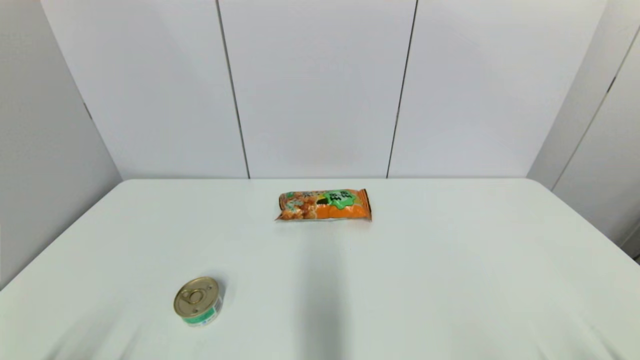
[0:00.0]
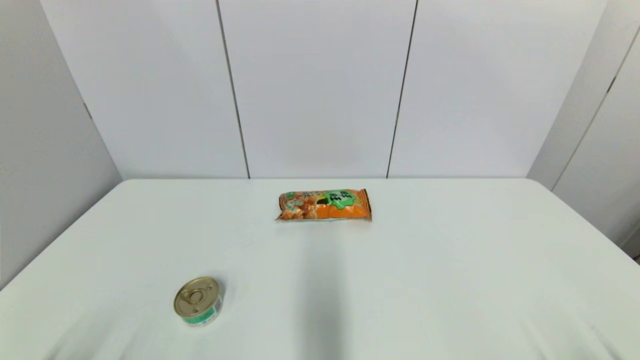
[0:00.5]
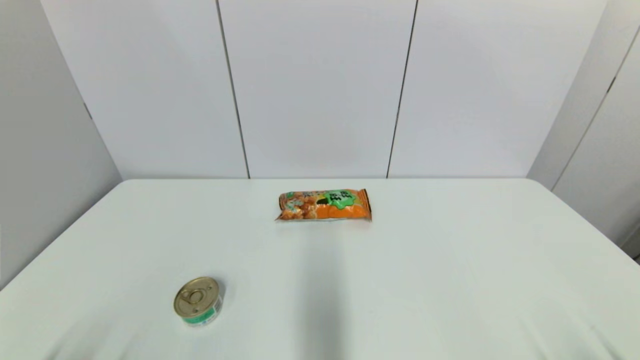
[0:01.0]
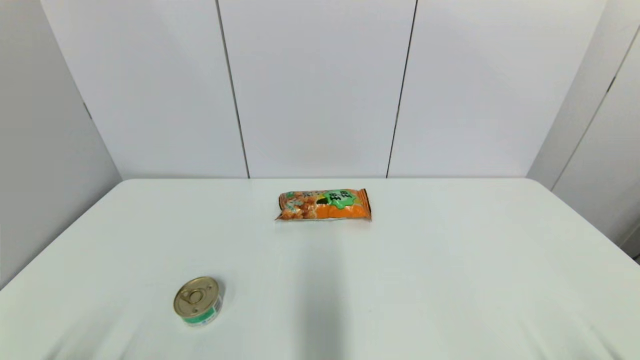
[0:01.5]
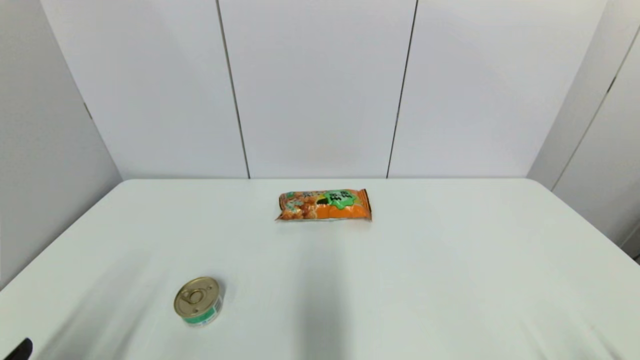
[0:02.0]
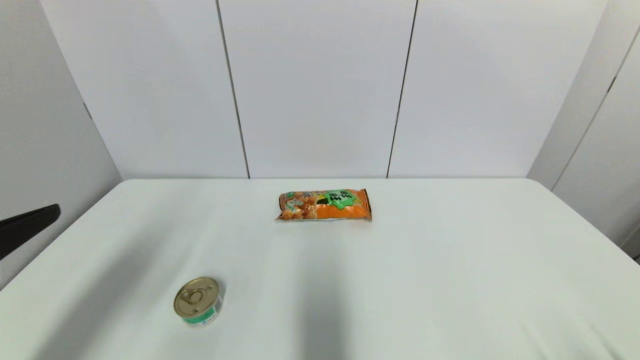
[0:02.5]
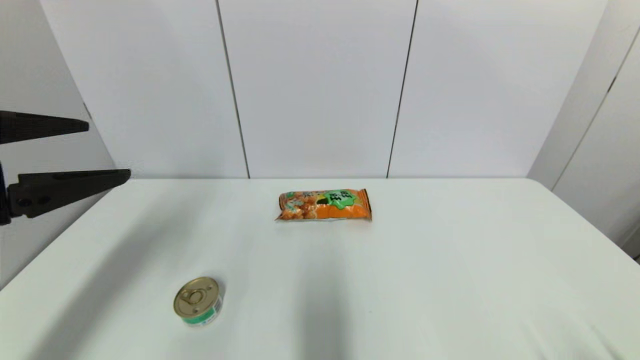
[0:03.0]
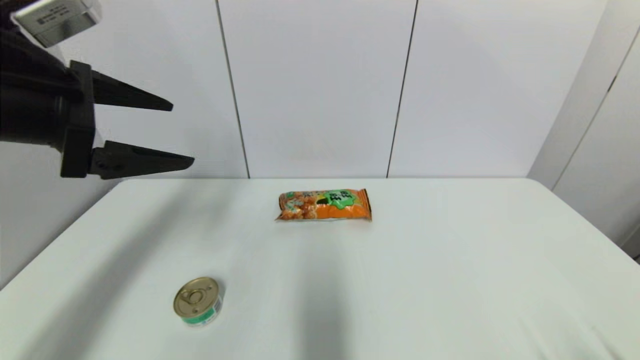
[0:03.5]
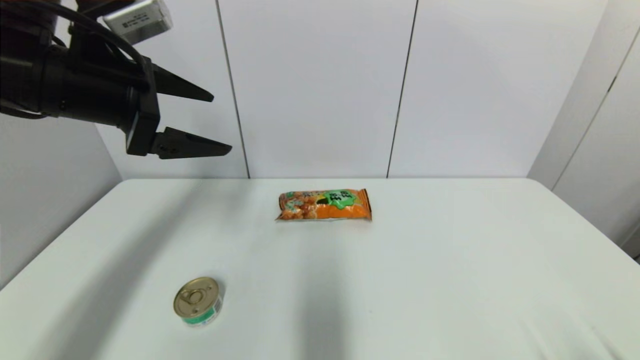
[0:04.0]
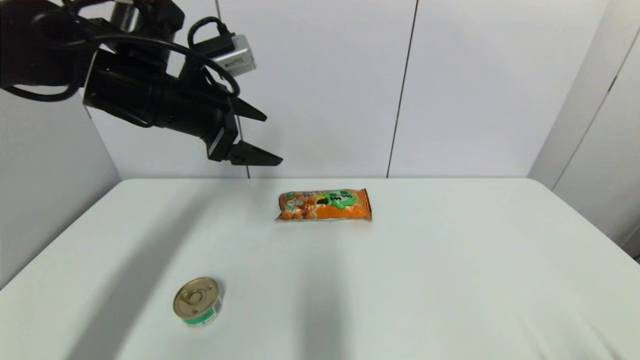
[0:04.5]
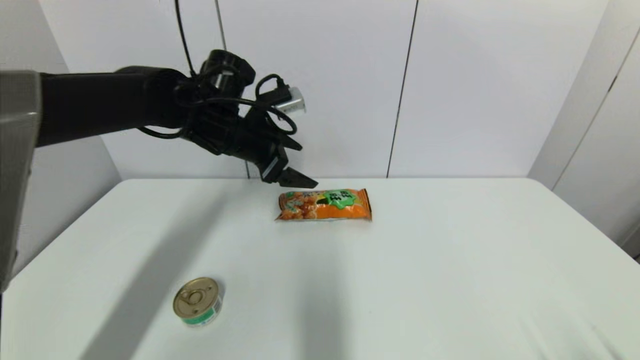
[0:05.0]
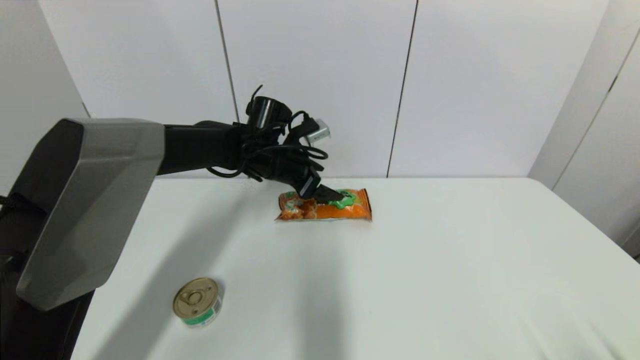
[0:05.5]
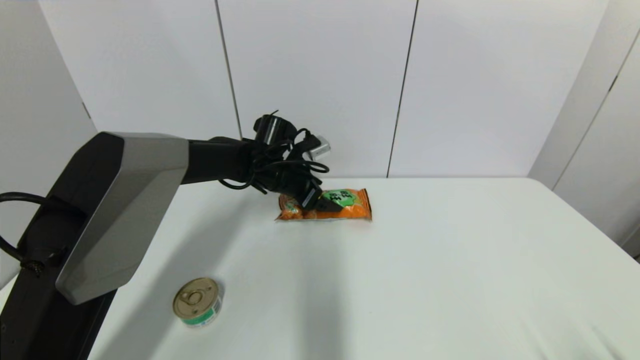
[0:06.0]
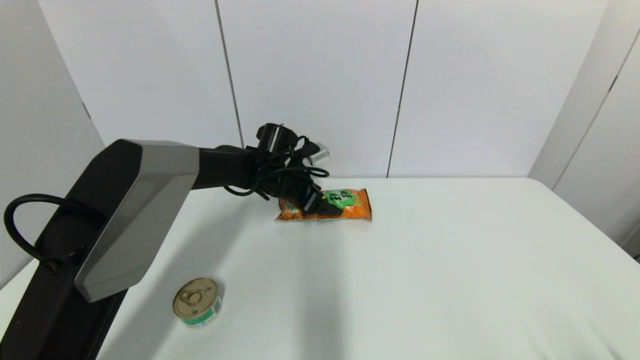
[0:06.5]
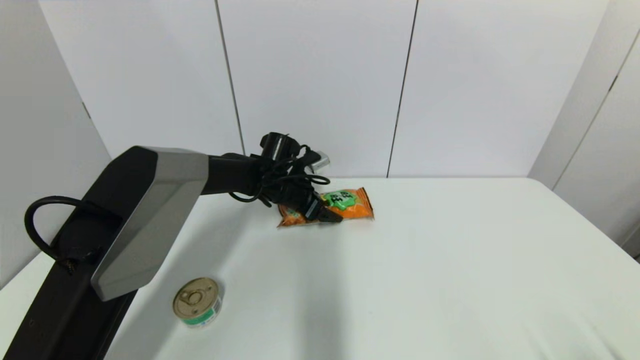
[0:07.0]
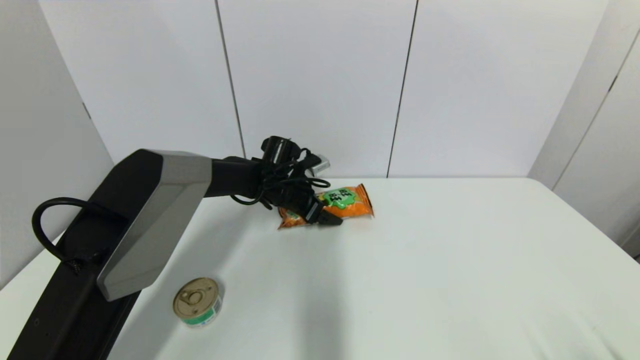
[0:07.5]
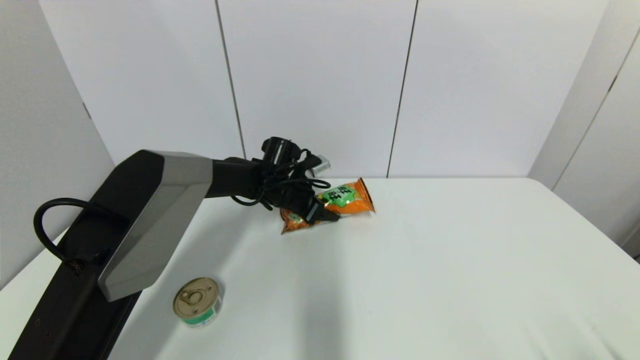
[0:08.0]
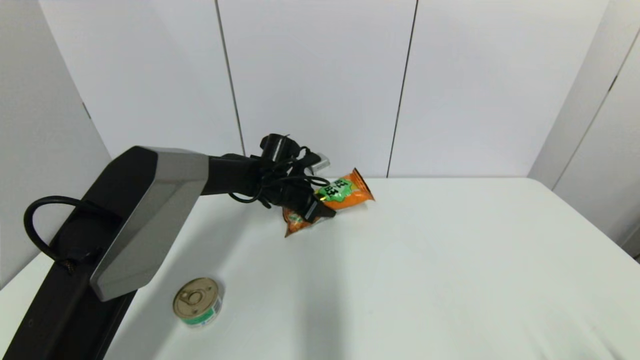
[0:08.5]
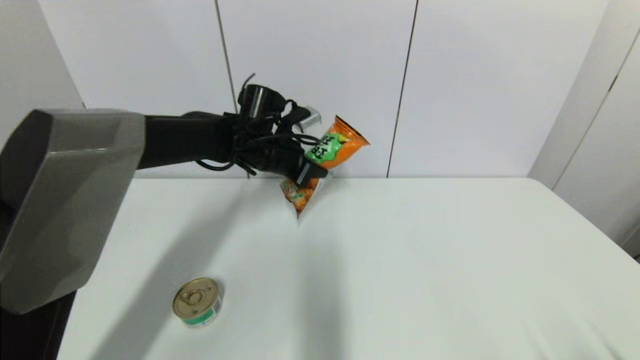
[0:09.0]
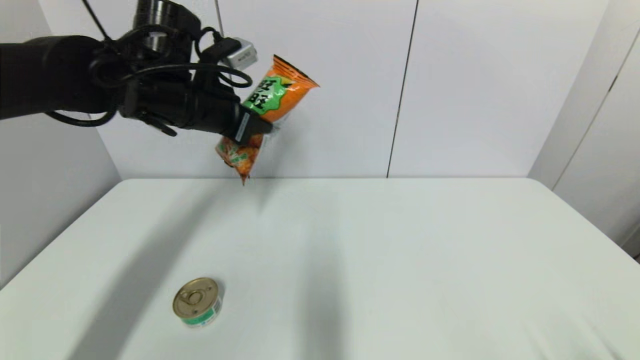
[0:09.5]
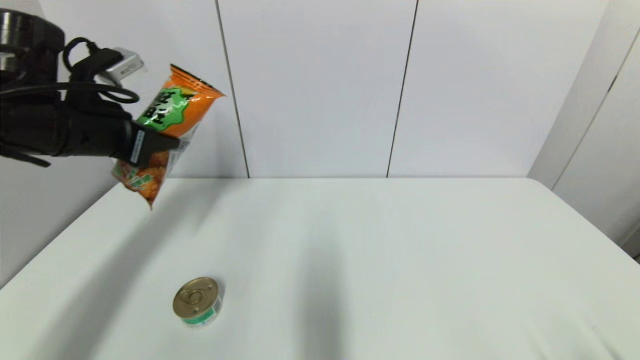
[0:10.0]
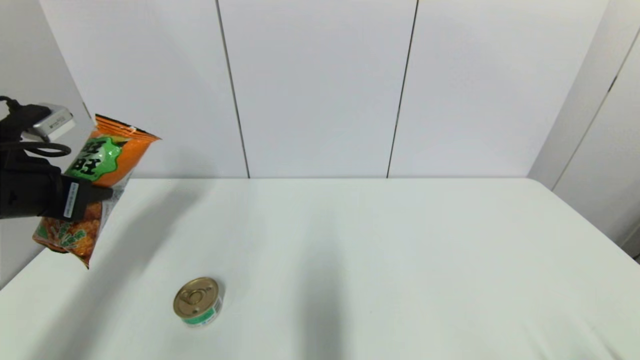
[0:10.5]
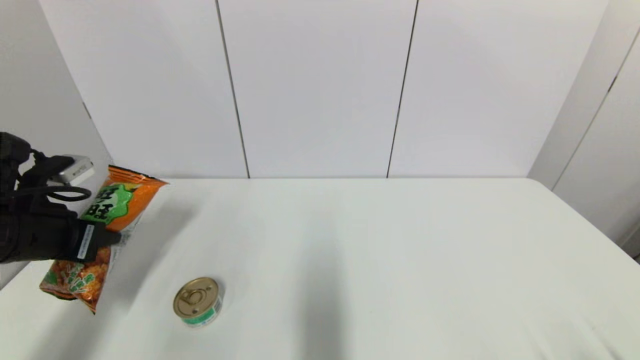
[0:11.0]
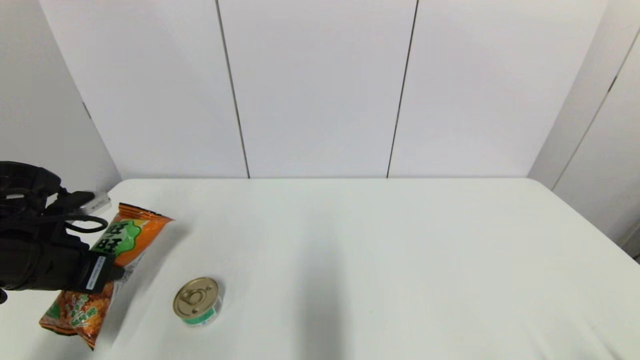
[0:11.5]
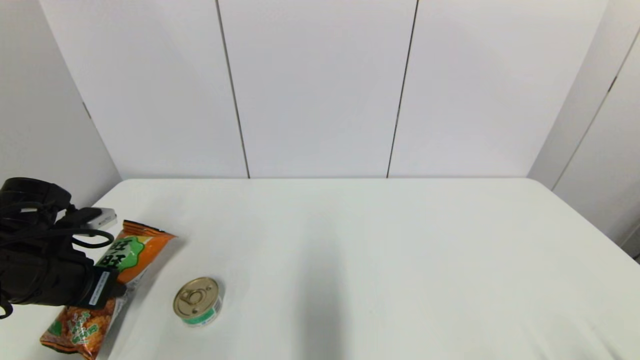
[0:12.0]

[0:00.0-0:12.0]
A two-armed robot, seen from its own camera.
Step, 0:02.0 to 0:08.5: Grasp the cookie with left gripper.
0:00.0 to 0:02.0: The left gripper shifts about 10 cm upward.
0:02.0 to 0:04.0: The left gripper is displaced forward and upward by some 30 cm.
0:04.0 to 0:06.0: The left gripper is displaced downward, forward and to the right by some 30 cm.
0:06.0 to 0:08.0: The left gripper shifts about 5 cm downward, and closes.
0:08.0 to 0:10.0: The left gripper moves to the left, upward and backward, approximately 35 cm, and closes its fingers.
0:10.0 to 0:12.0: The left gripper moves downward and backward, about 15 cm.

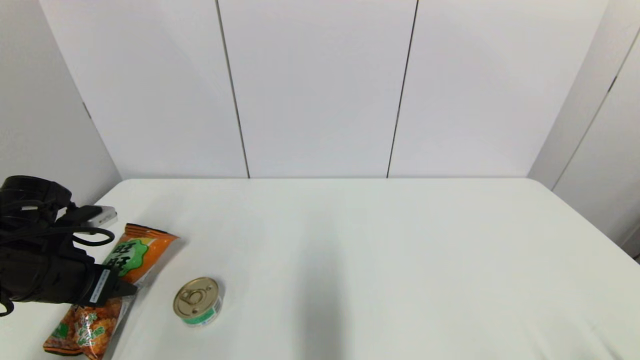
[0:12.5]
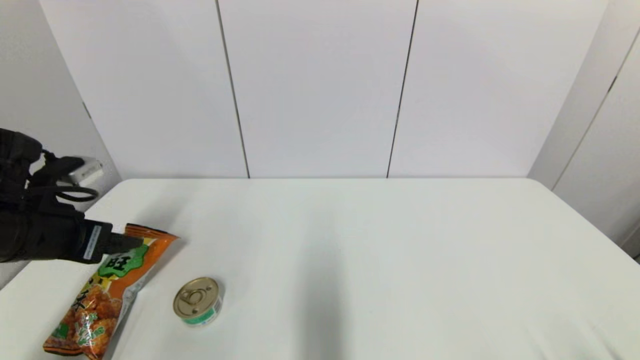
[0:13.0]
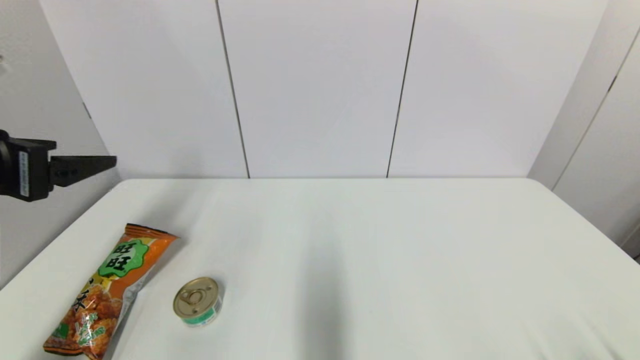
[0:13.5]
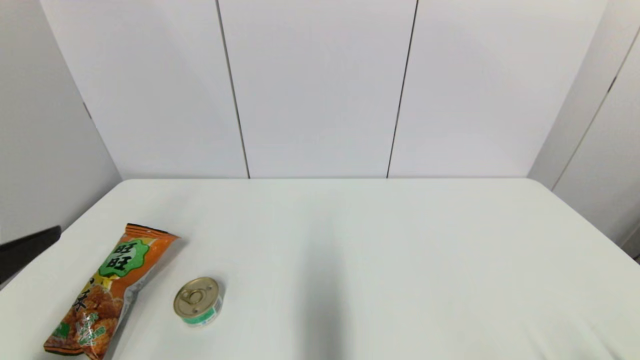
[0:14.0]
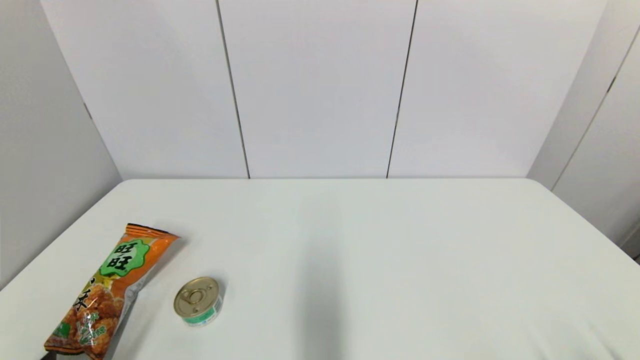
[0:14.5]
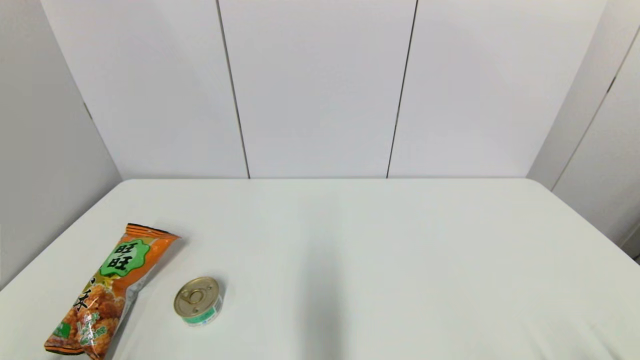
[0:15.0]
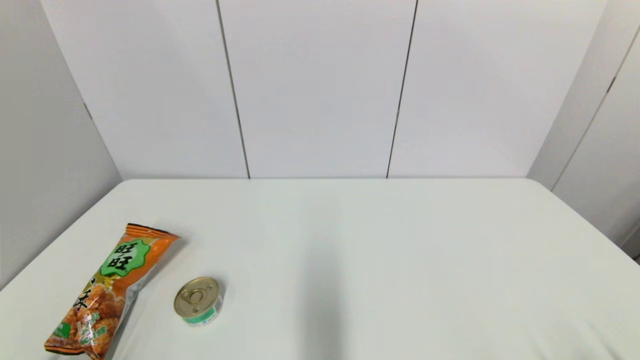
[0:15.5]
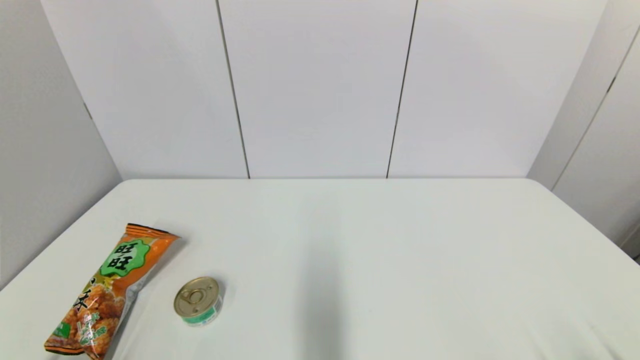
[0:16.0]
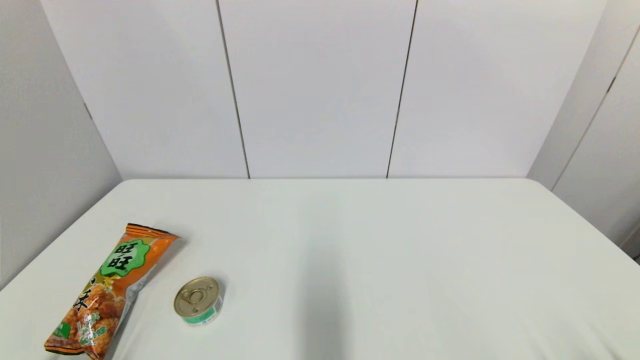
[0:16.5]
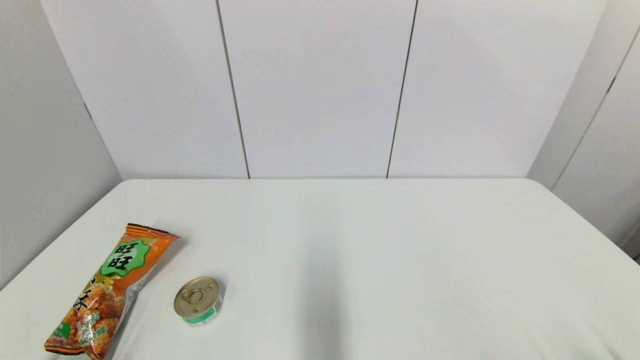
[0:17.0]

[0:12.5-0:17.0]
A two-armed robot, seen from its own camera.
0:12.5 to 0:14.5: The left gripper is displaced backward by approximately 20 cm, and opens.
0:14.5 to 0:17.0: The left gripper goes some 10 cm downward.
